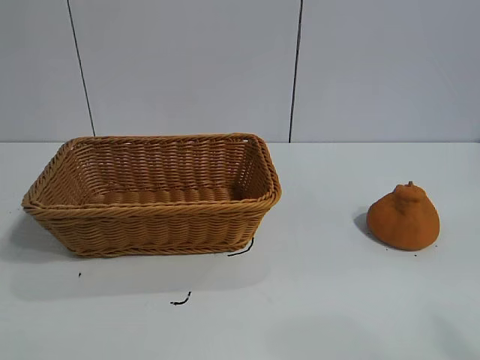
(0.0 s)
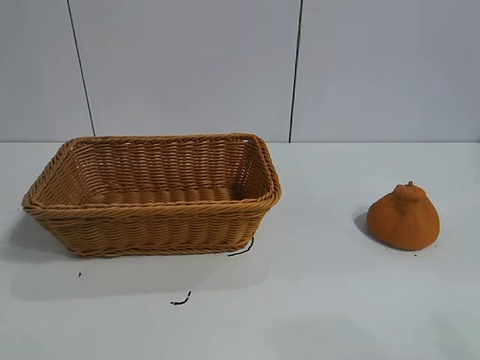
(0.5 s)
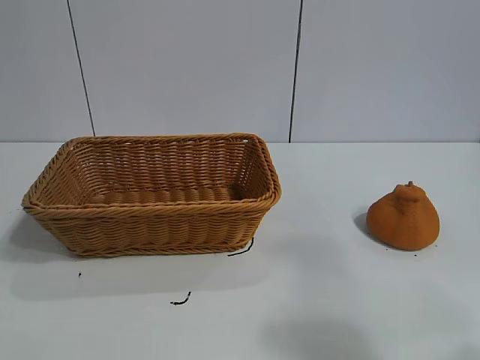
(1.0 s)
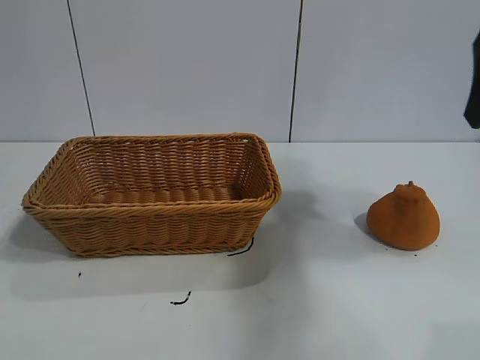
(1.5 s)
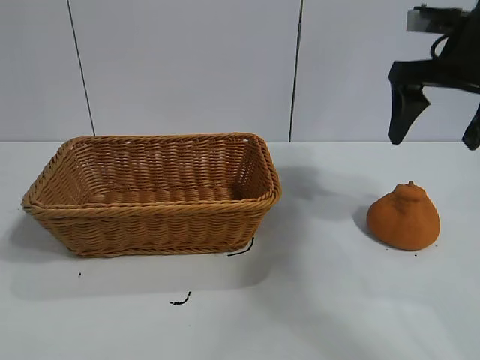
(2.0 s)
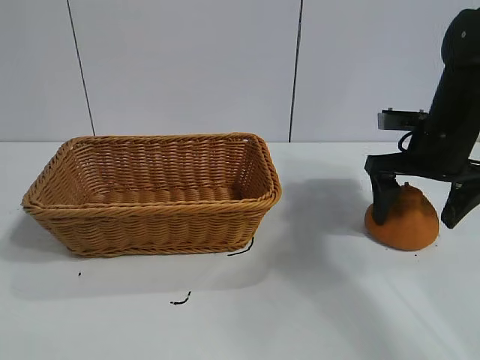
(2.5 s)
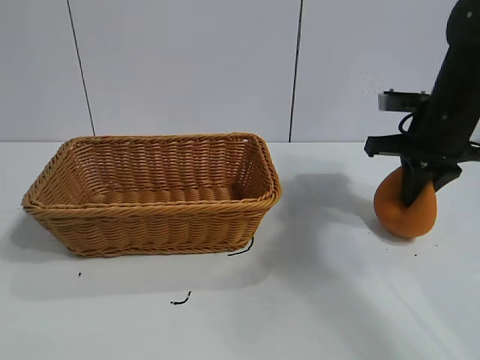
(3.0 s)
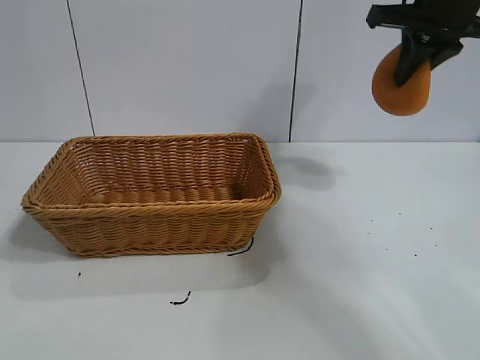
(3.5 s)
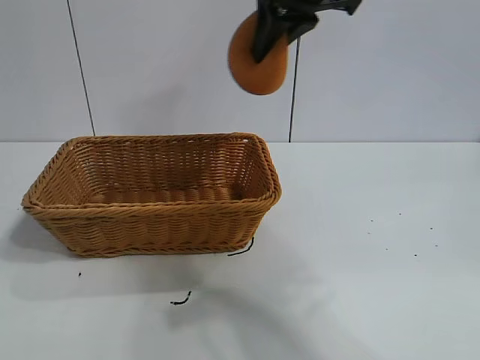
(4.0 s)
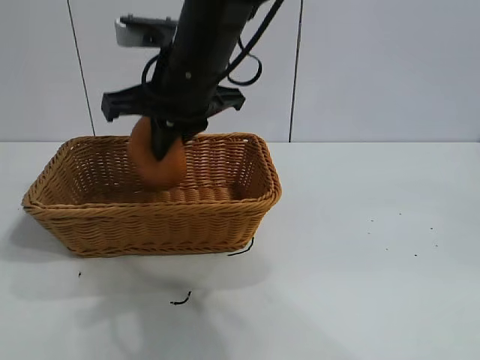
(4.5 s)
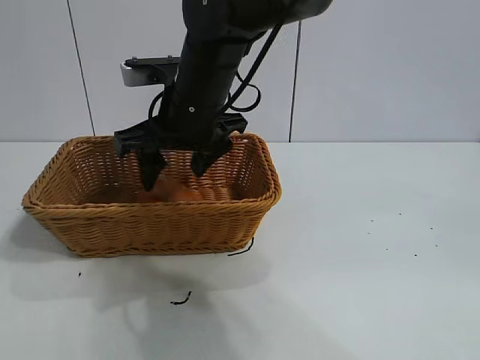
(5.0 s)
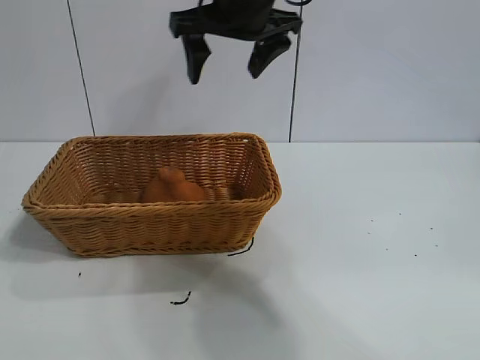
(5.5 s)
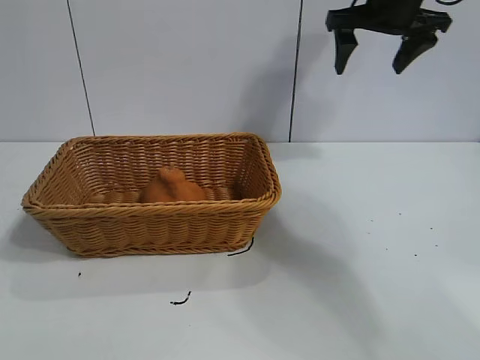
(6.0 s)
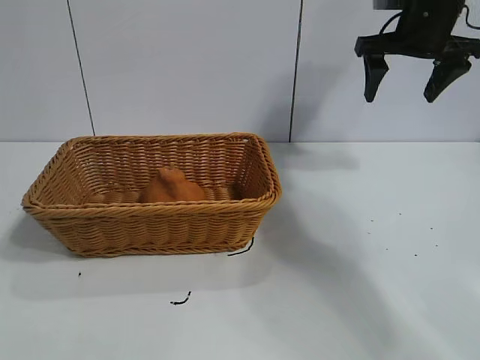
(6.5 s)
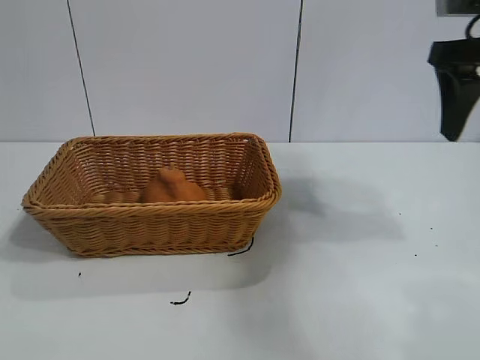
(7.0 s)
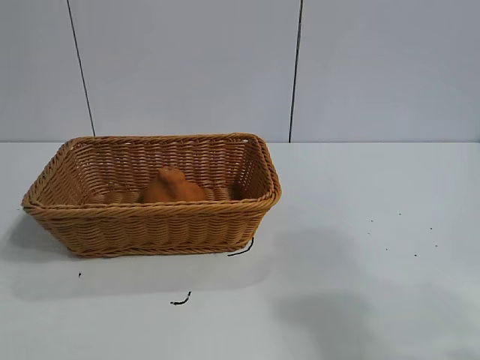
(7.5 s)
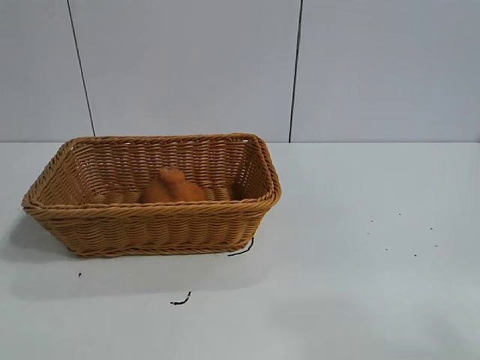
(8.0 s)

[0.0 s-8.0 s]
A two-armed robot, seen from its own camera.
Task of the whole recording: pick up the orange and put it into the basket.
Step, 1.0 to 3.0 s: Grasp the orange with right gripper.
Step, 3.5 to 5.0 s: Place the orange in the basket with right gripper.

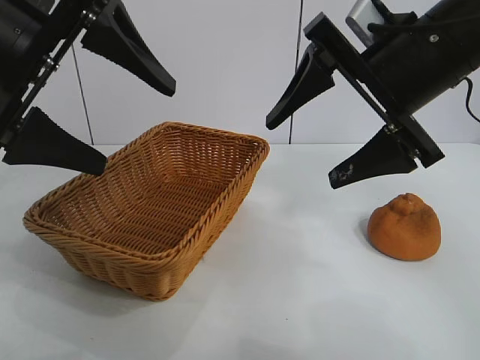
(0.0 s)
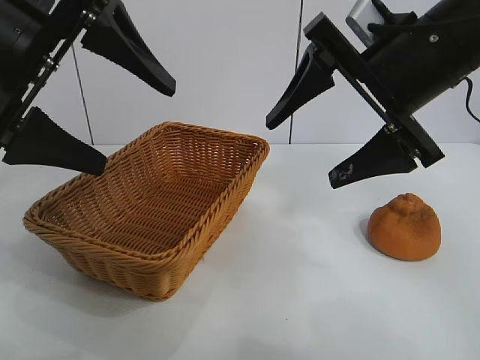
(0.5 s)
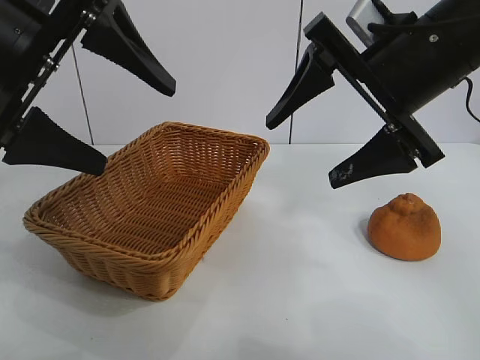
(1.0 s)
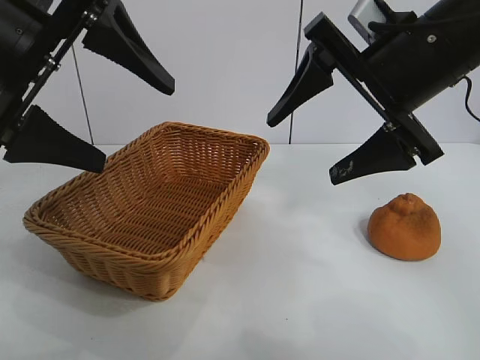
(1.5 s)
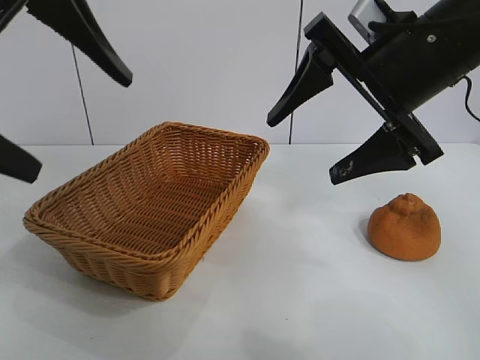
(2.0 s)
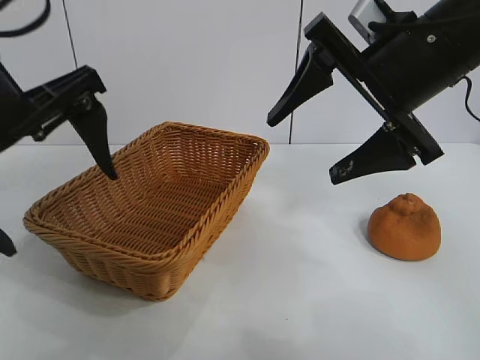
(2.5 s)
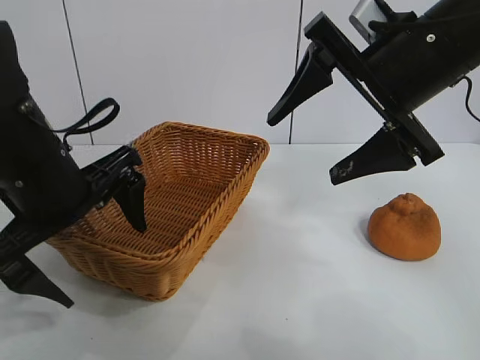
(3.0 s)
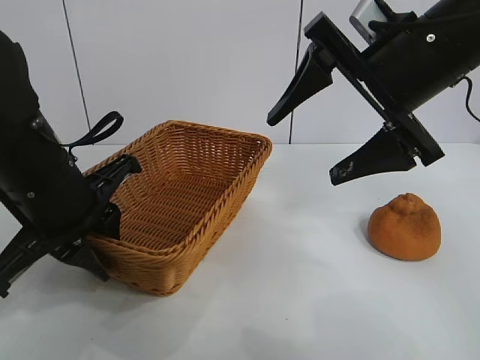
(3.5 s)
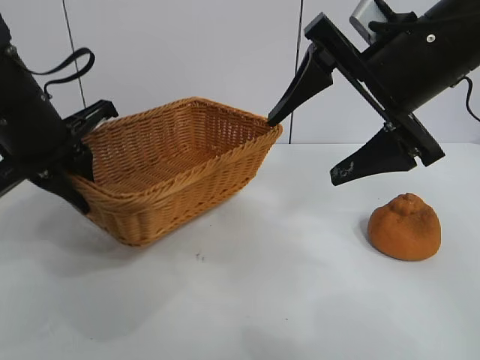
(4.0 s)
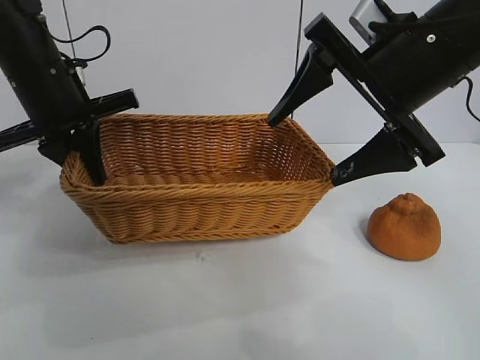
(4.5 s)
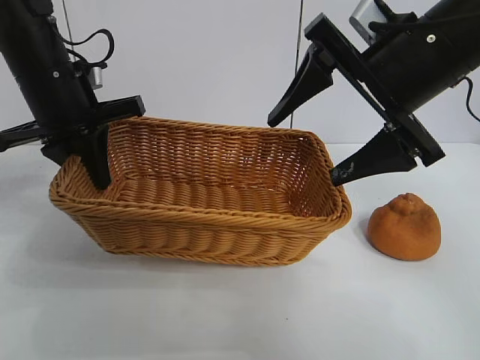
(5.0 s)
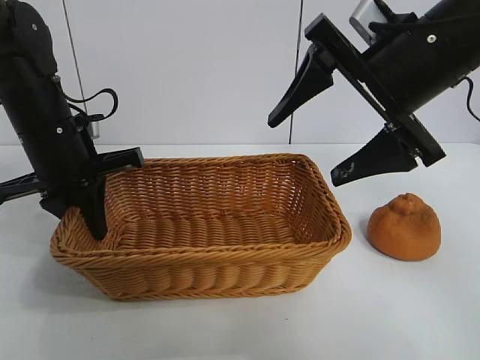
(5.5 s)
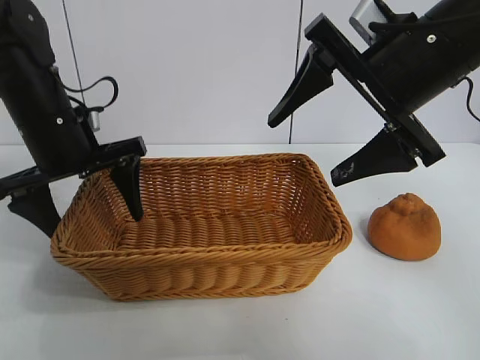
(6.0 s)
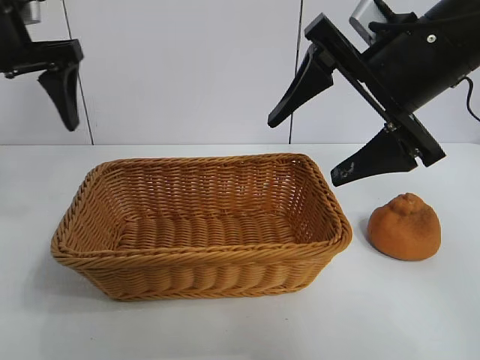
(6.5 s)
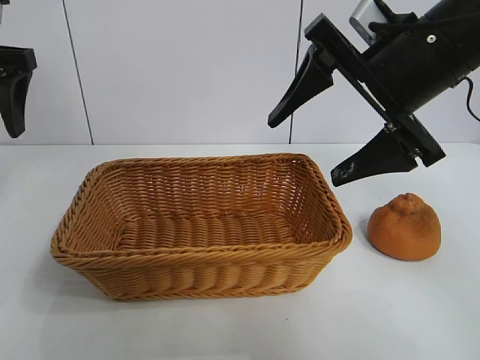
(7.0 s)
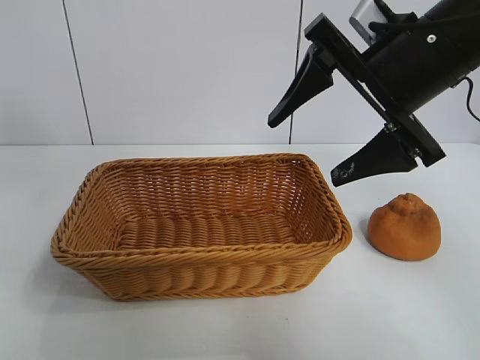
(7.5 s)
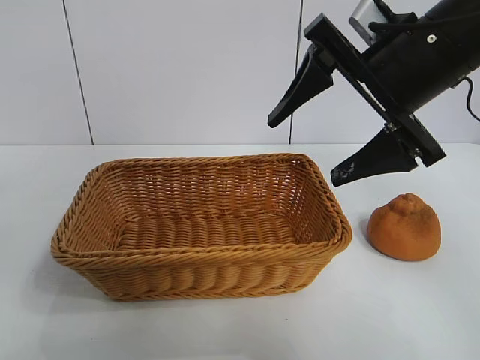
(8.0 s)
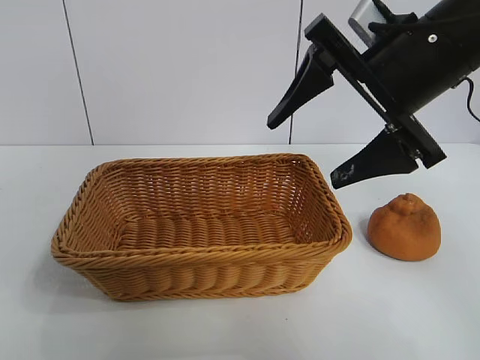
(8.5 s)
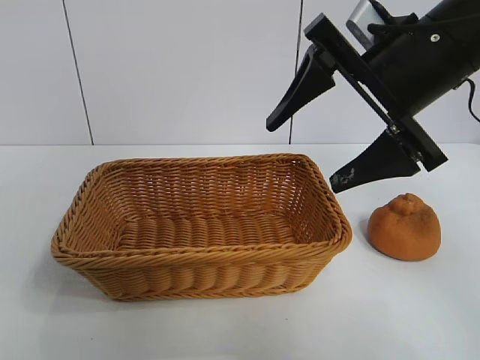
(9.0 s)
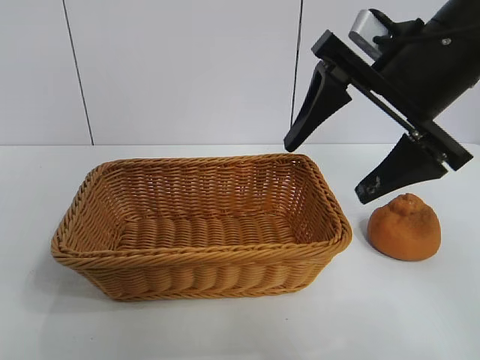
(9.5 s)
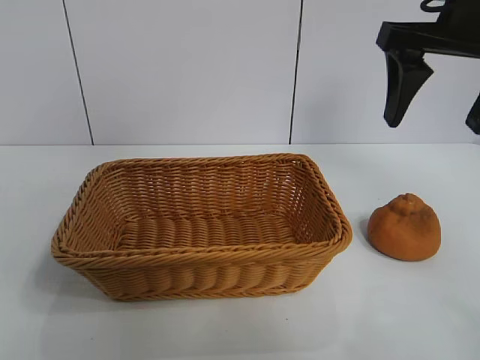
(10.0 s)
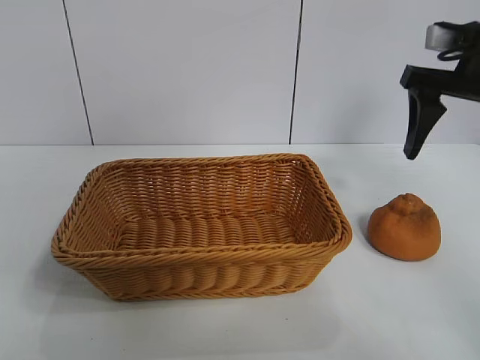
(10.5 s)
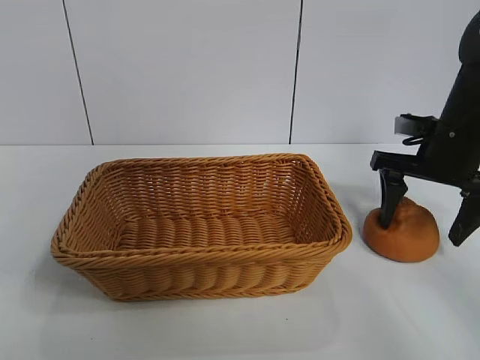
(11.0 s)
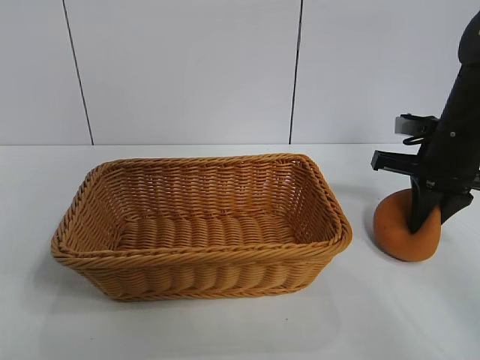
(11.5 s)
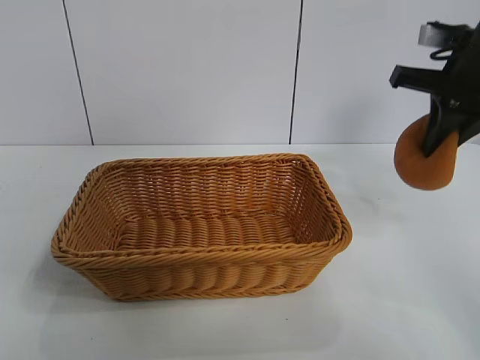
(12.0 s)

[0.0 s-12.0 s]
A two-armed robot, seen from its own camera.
Task of the whole recording: pick up the orange and put it into the basket.
Step, 2.0 to 3.5 s: Grasp the basket with left gripper.
Step, 4.0 to 5.5 s: Place the basket in the center of view with left gripper.
Step, 6.5 to 11.5 s: Grasp the orange with right gripper.

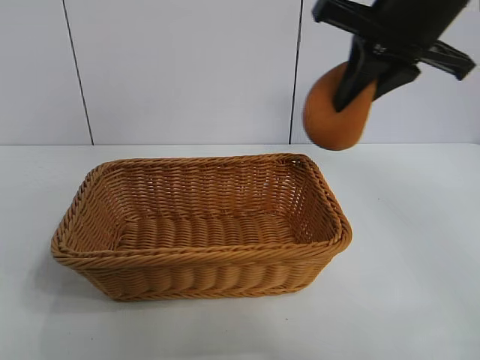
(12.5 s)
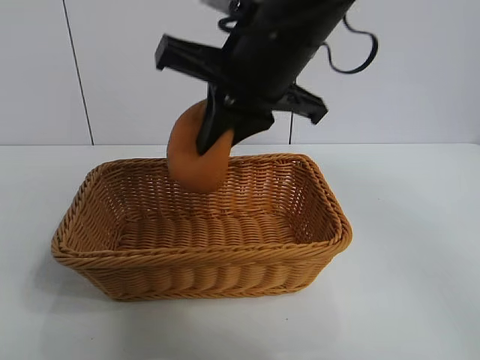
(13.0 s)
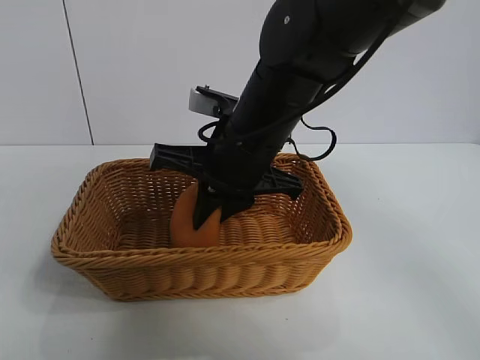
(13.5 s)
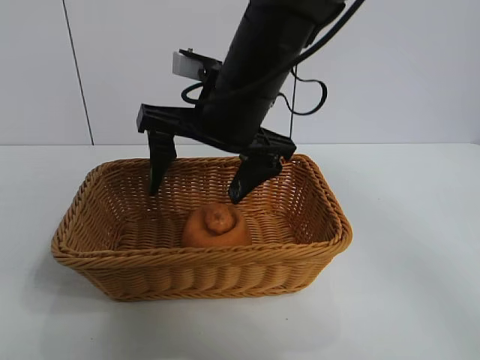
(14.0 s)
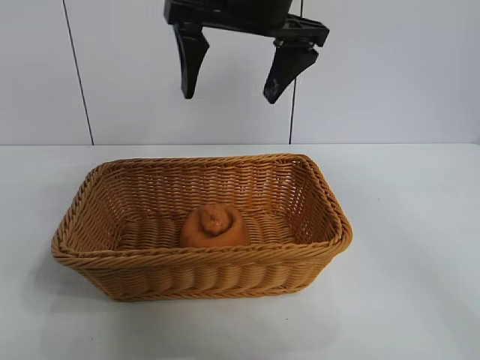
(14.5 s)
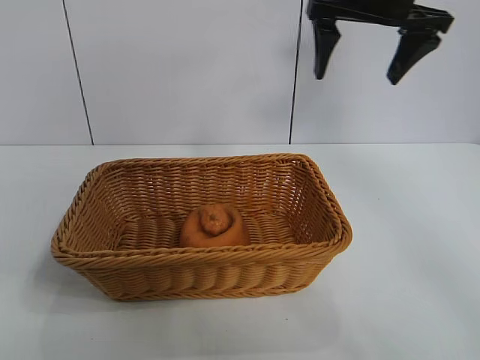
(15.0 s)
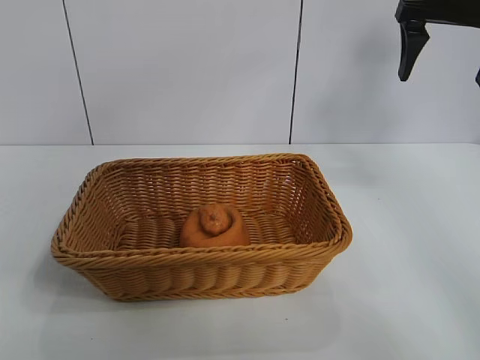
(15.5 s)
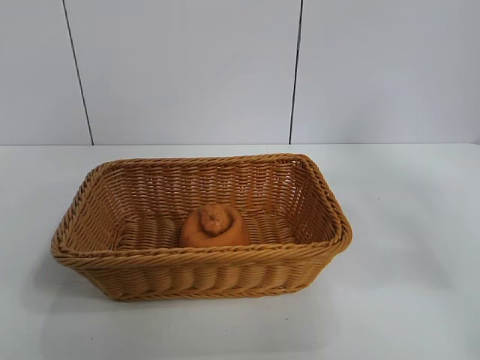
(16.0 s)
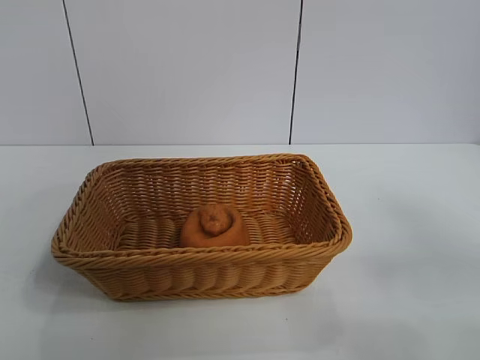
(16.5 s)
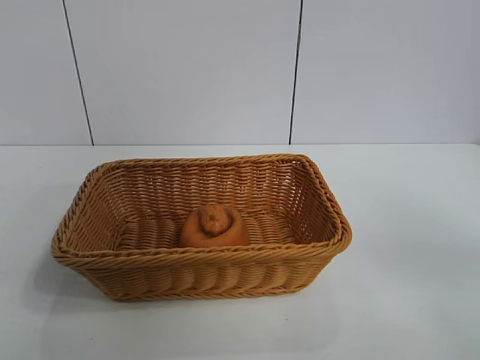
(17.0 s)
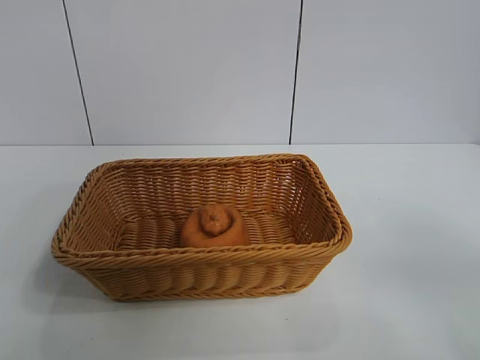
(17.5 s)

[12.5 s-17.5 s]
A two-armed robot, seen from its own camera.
Task of the whole recording: pick up the orange and put it into the basket.
Step, 12.5 to 13.5 s: Place the orange in the basket with right gripper.

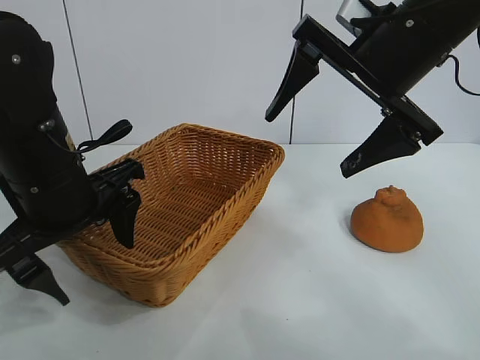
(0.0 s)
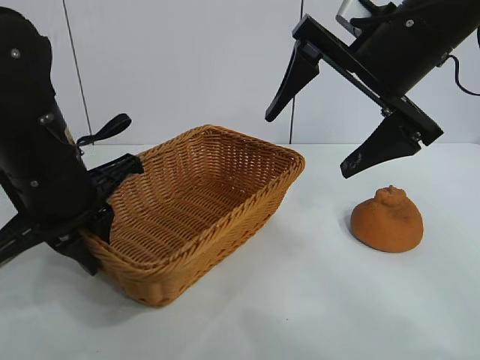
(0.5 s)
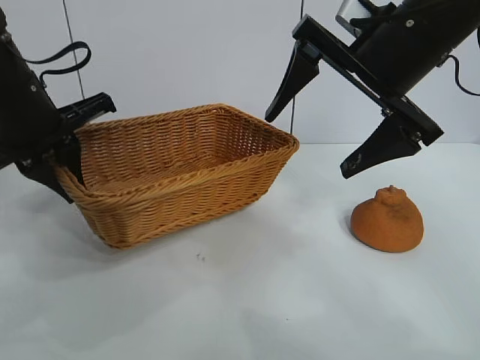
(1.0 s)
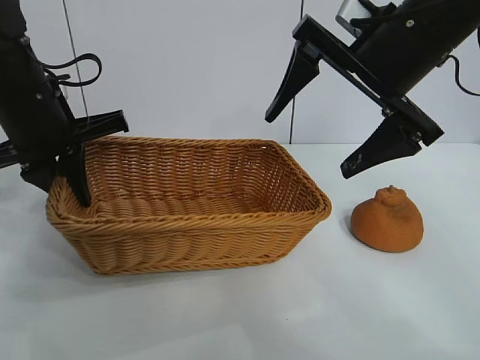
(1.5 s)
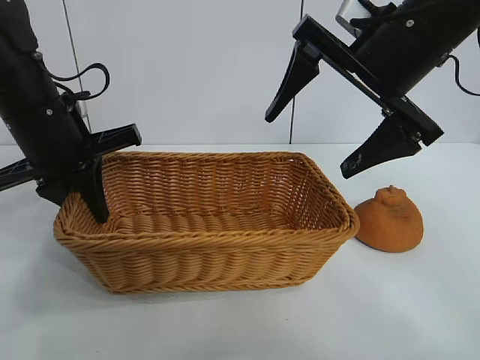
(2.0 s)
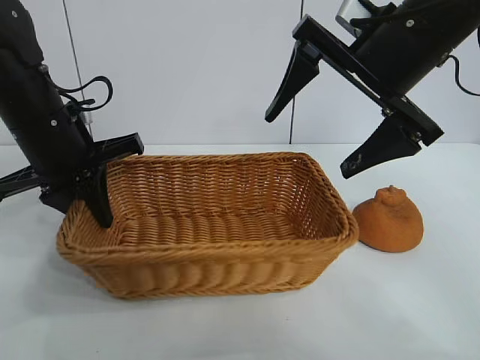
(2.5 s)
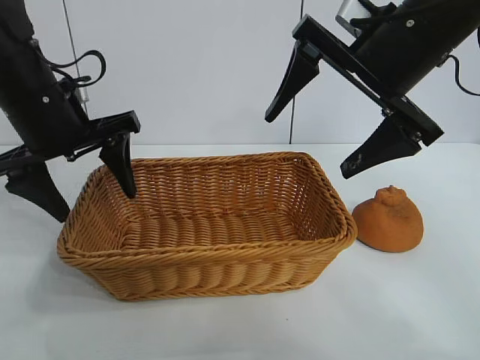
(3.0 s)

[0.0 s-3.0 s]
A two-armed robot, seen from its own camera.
Task of the whole recording: pick up the orange and put it into the basket.
Step, 0.5 to 2.5 s: Place the basket in the center of view with left gripper.
